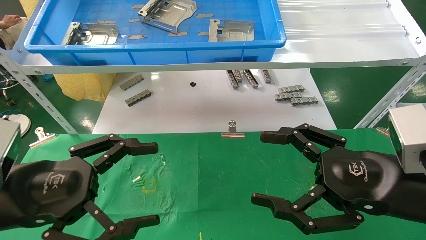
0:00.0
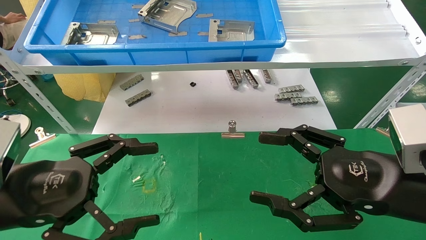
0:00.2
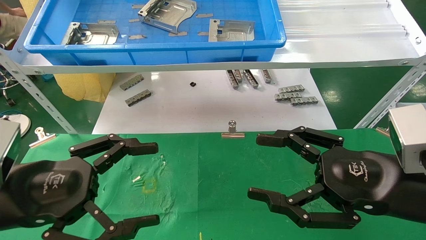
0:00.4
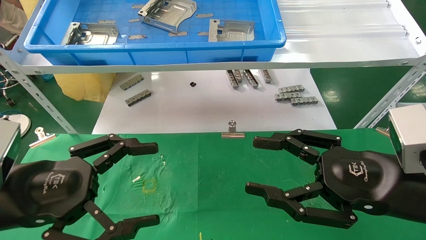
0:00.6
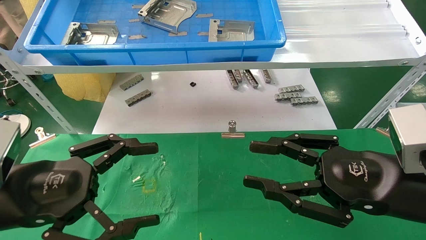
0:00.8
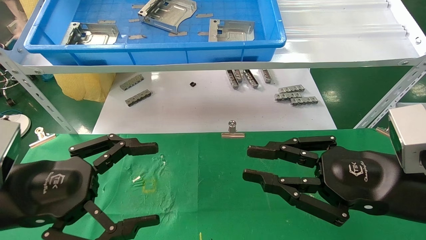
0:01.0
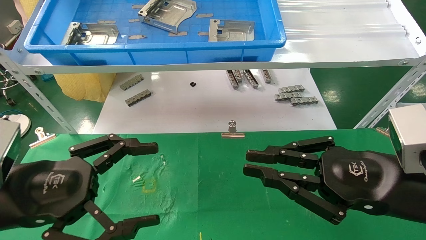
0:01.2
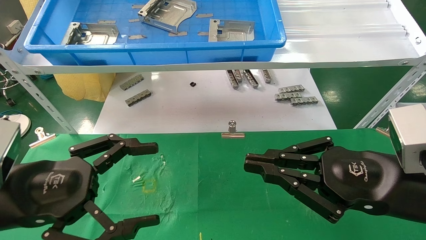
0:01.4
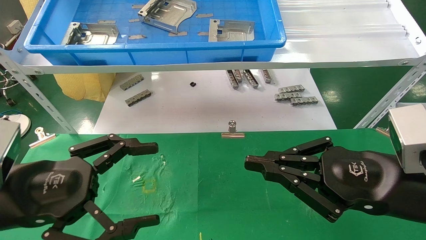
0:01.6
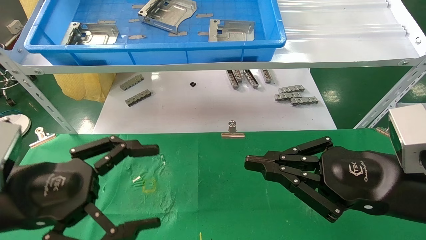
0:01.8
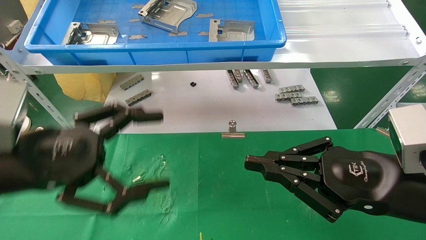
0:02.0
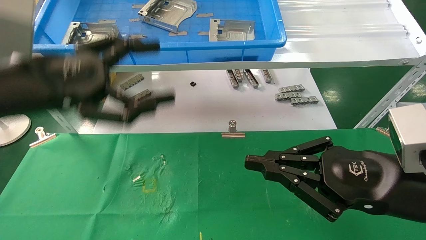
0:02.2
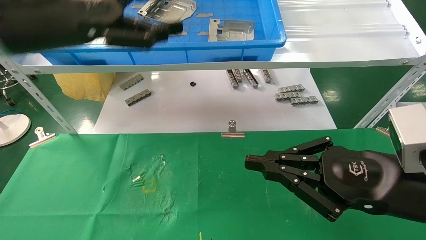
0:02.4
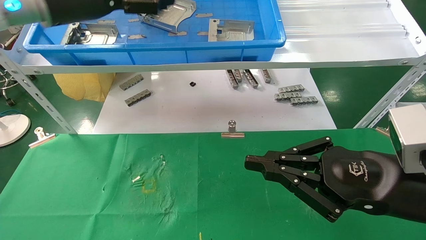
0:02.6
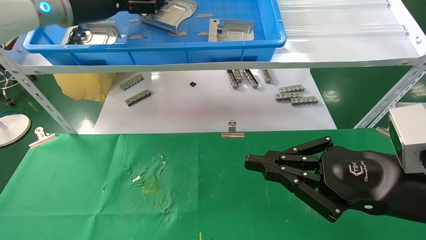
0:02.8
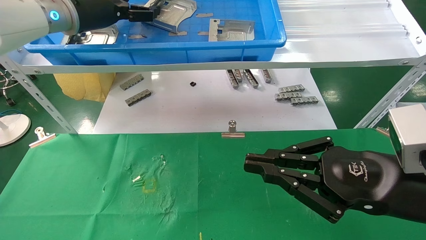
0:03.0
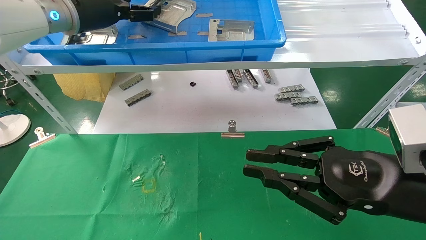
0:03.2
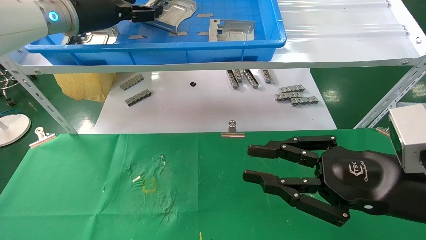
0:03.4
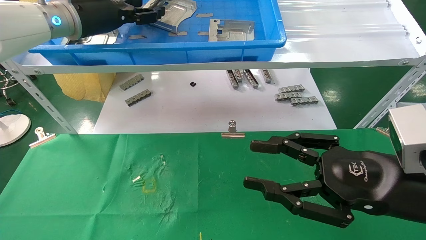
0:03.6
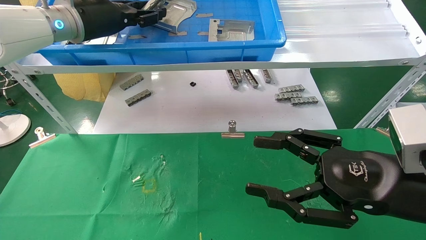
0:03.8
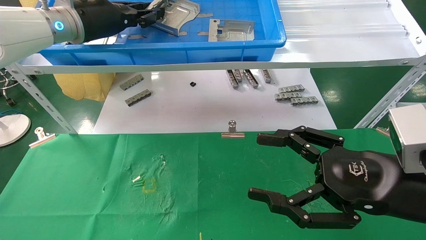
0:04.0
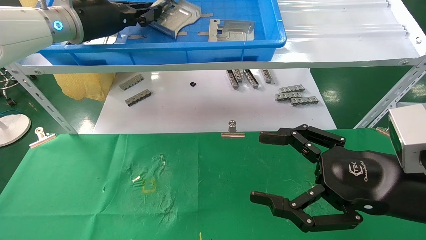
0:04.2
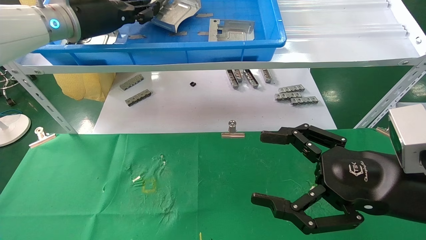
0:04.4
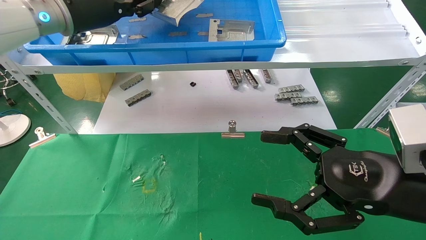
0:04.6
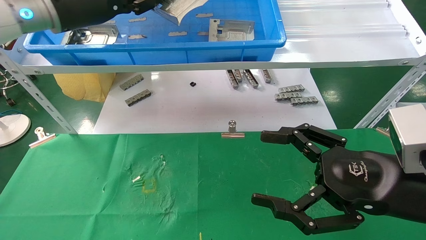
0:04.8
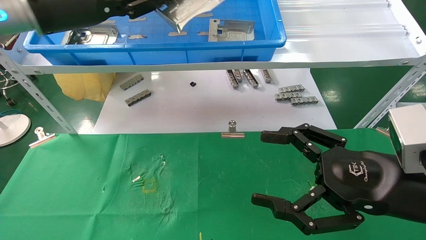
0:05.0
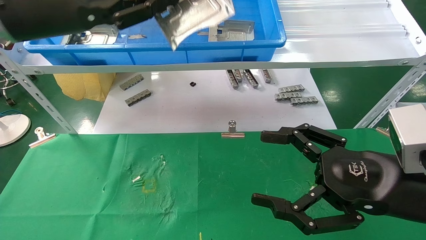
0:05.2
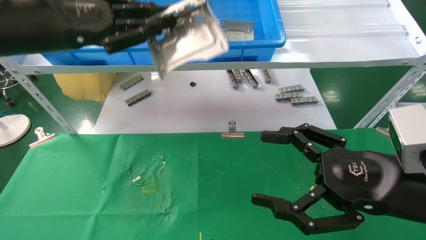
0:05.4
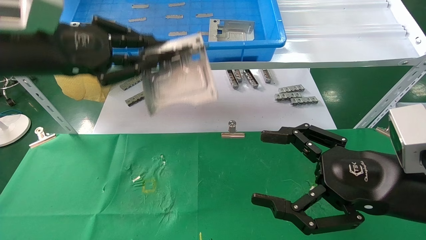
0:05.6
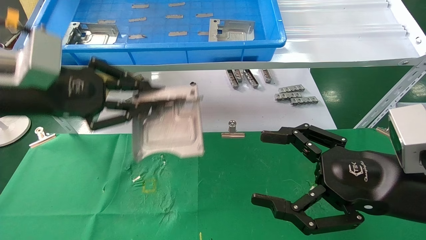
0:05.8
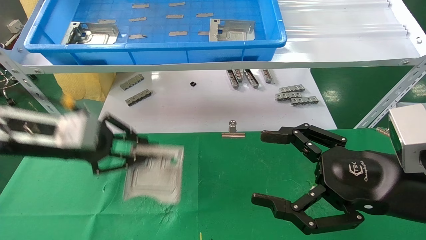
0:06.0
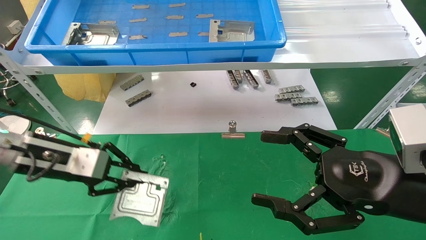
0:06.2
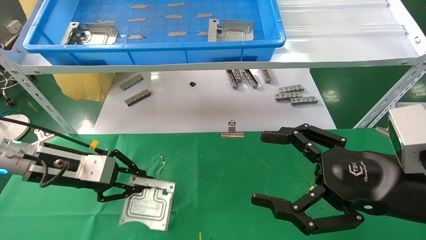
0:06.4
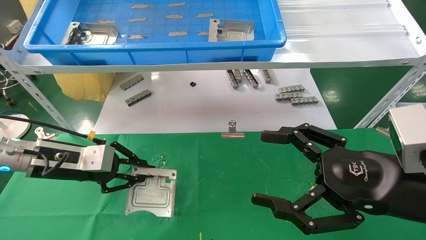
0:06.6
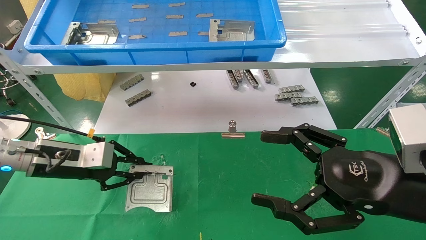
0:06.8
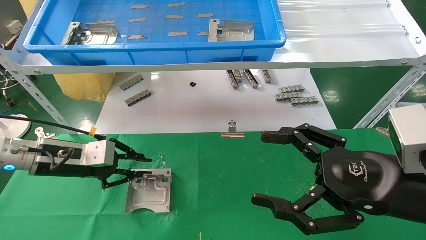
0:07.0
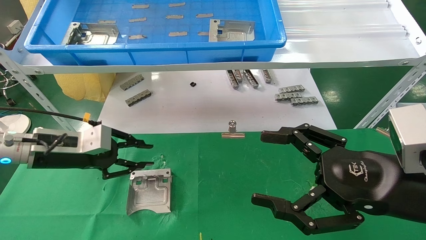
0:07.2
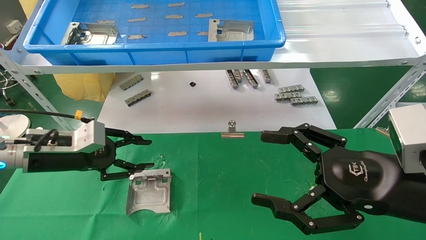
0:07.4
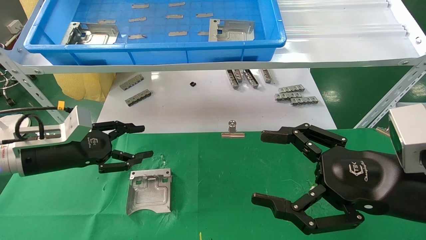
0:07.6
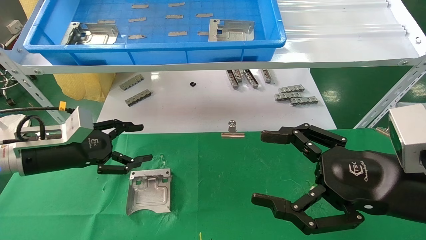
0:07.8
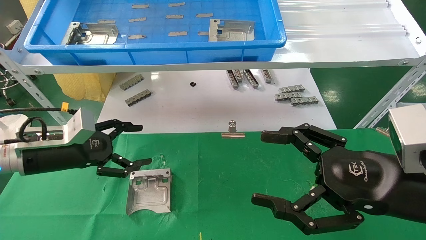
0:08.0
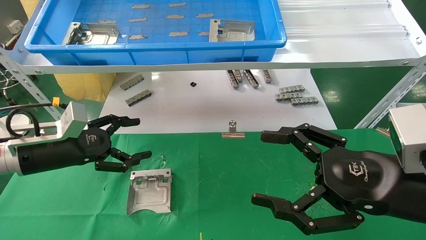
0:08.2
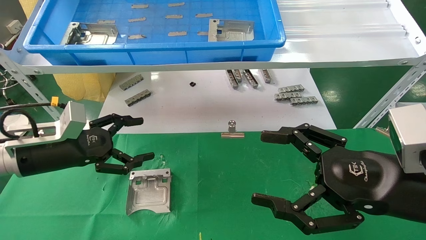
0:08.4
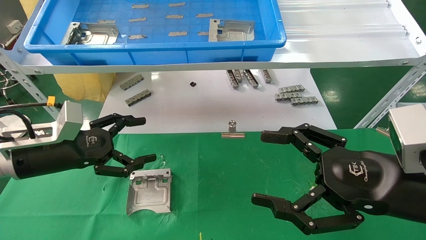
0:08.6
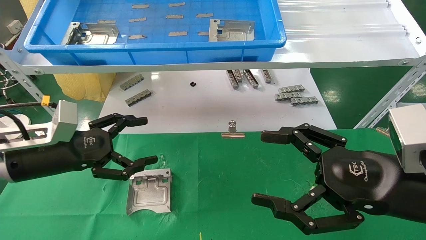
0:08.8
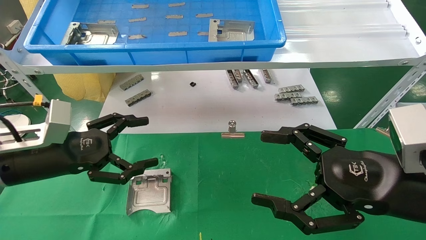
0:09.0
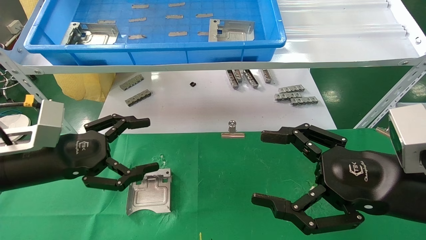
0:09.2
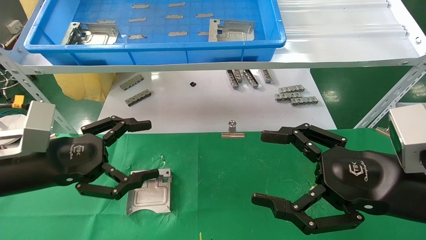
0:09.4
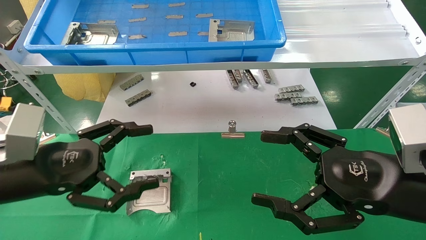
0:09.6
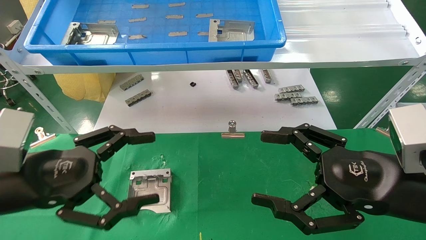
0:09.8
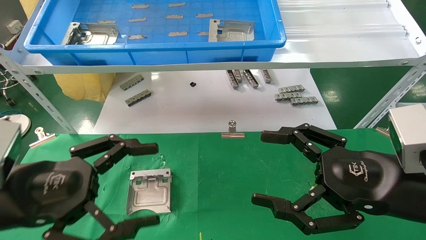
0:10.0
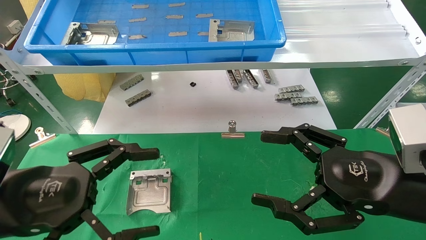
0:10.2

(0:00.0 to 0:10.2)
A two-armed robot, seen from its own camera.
Task of the whole recording: use the mechanical arm to pick up the parts and place them on the table.
Step, 0:02.2 - 0:04.2: Pick up the hard drive bracket from the feeding area.
Step, 0:04.4 - 0:07.4: Place the hard drive bracket into the box.
0:00.0 - 0:01.4: The right gripper closes up.
0:01.4 - 0:03.0: The left gripper heads forward and upward, covering some 35 cm.
0:03.0 - 0:04.4: The left gripper closes up. Meanwhile the right gripper opens.
0:04.4 - 0:05.8: The left gripper is displaced backward and downward by approximately 15 cm.
0:05.8 - 0:07.2: The left gripper goes some 15 cm downward and forward.
0:07.2 - 0:08.8: The left gripper opens up.
0:08.8 - 0:10.2: The left gripper shifts roughly 15 cm backward.

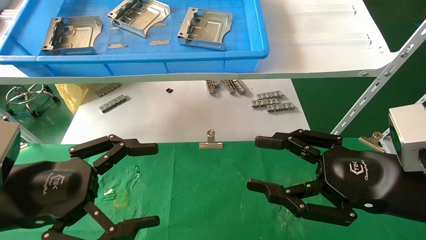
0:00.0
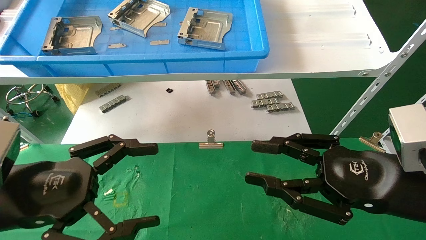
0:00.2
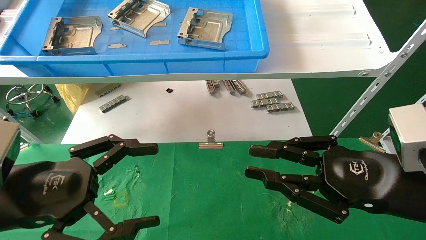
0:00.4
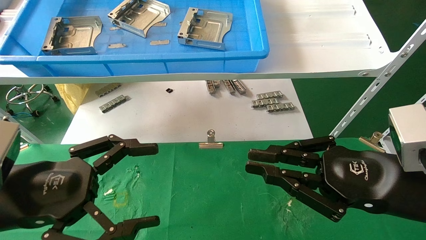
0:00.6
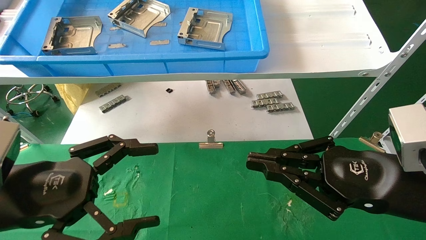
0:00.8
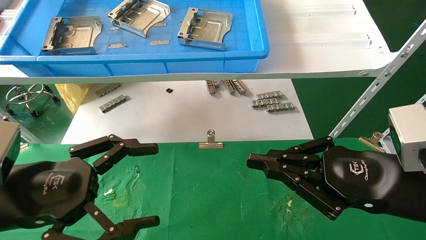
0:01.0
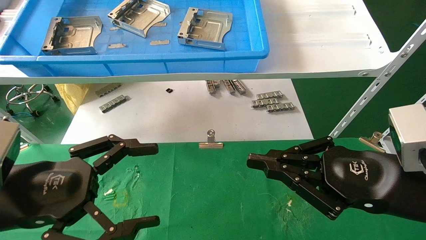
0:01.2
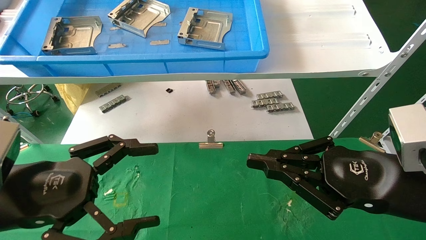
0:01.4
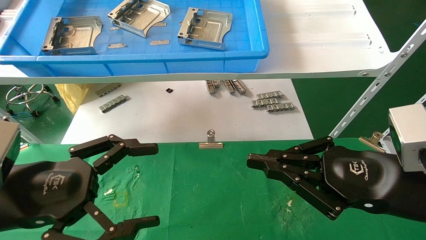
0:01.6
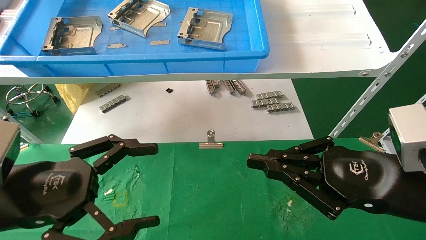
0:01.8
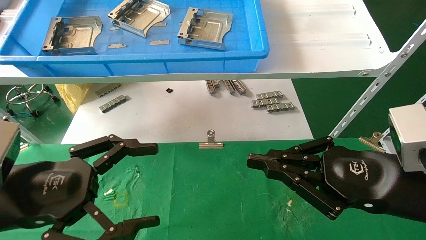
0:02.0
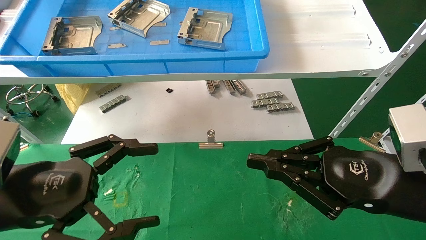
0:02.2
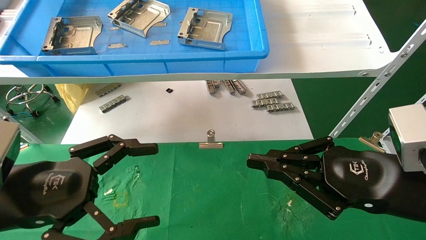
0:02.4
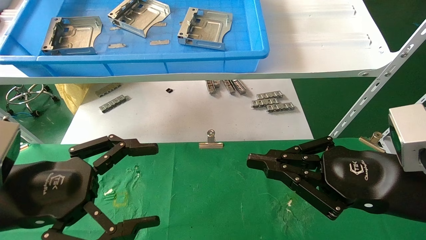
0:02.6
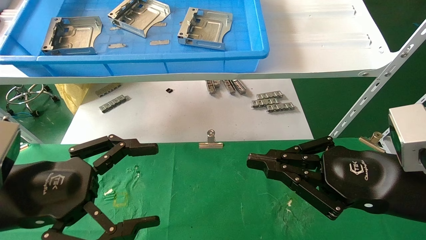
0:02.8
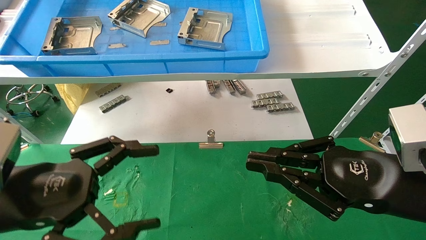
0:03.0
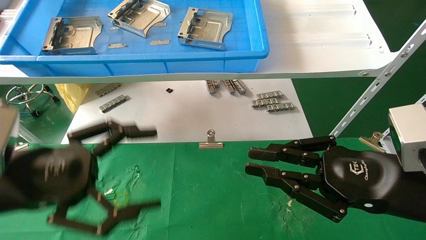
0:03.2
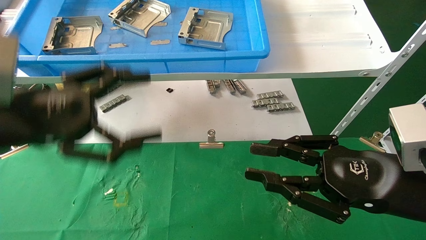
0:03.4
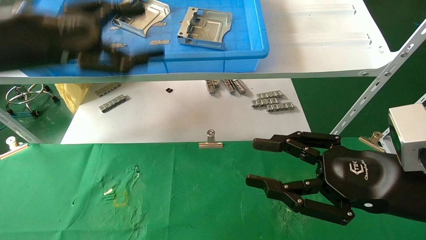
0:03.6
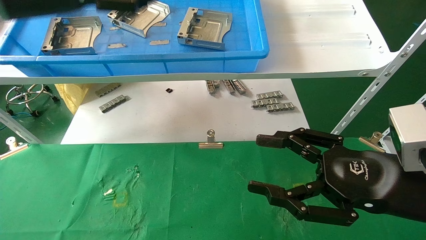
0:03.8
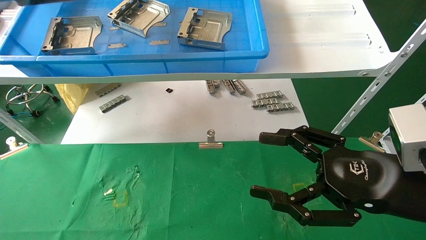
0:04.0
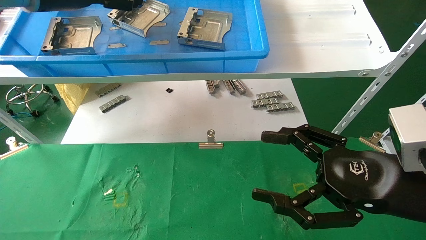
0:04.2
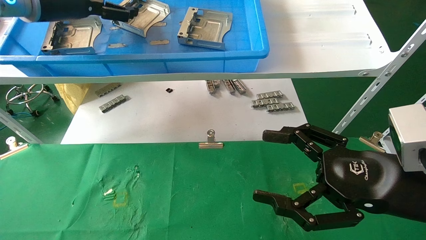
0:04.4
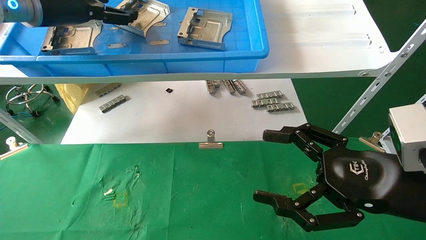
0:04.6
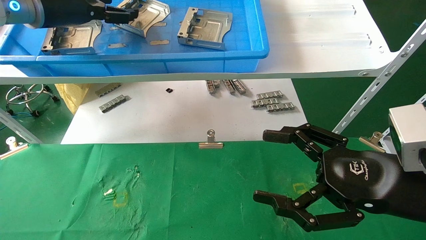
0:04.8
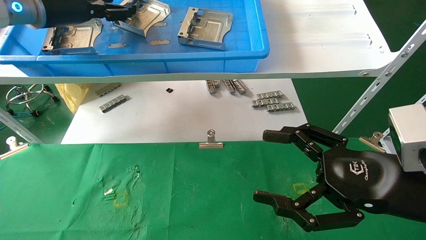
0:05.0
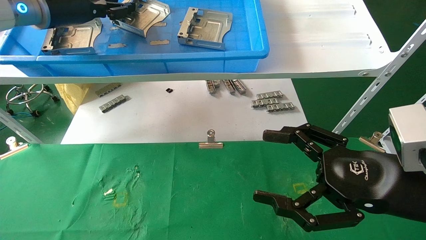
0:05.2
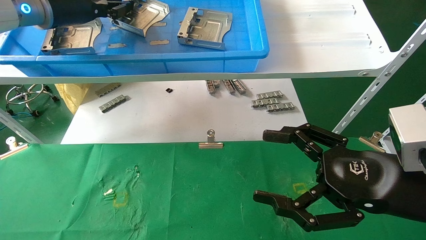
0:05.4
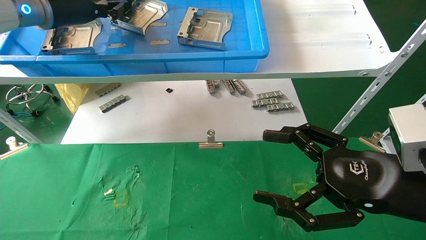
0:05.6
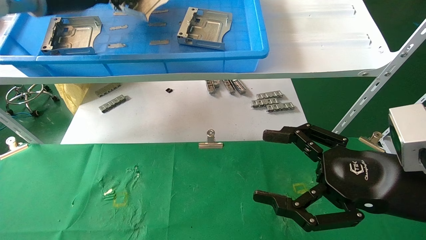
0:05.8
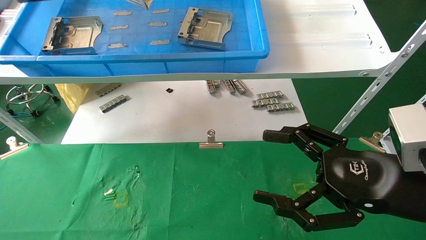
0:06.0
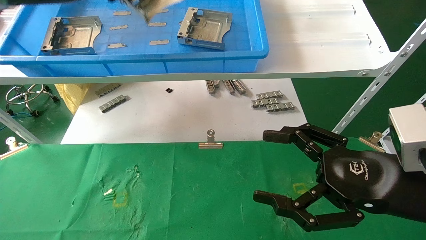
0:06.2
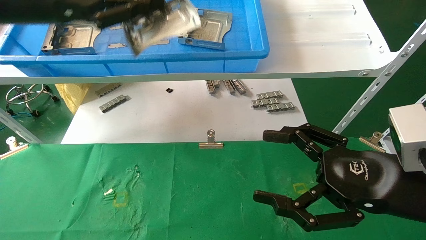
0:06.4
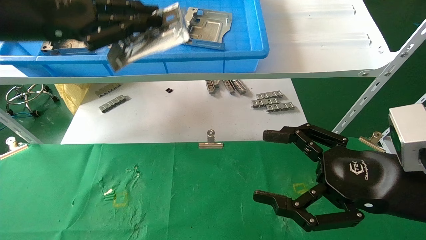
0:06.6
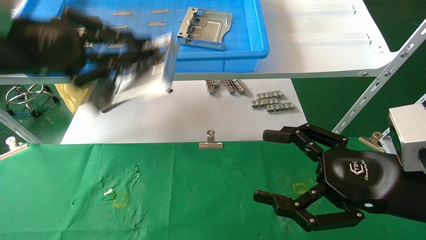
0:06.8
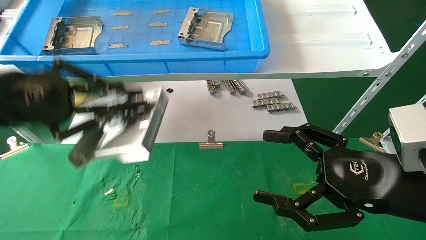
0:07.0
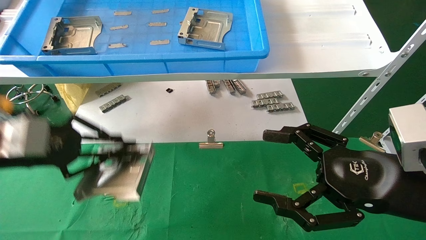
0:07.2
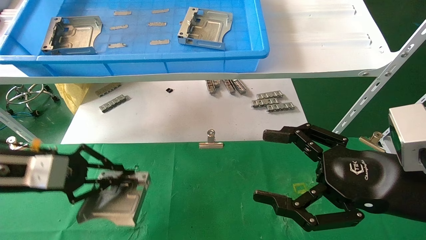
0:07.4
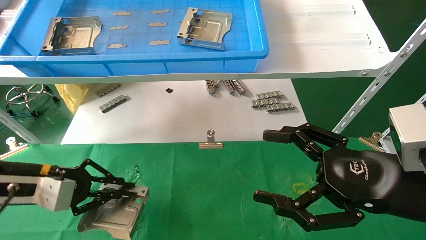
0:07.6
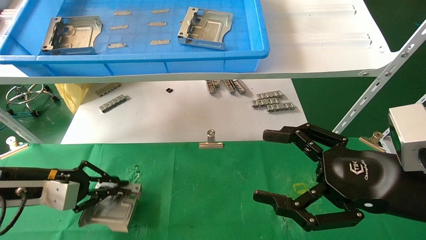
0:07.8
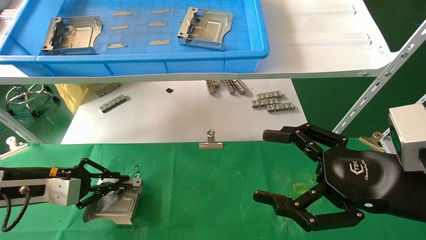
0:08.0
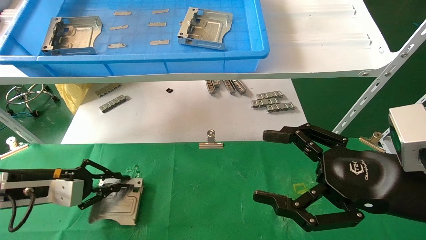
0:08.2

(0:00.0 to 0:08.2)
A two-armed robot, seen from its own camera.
Task of the whole recording: use the mechanical arm to pick up the parts and place them on the table.
Step, 0:03.4 - 0:05.6: Pick up the hard drive bracket from the feeding area.
0:00.0 - 0:01.6: The right gripper closes its fingers.
0:01.6 - 0:03.2: The grippers make only small movements.
0:03.2 - 0:05.0: The left gripper travels forward and upward by roughly 30 cm, while the right gripper opens.
0:05.0 - 0:06.6: The left gripper heads backward, covering approximately 15 cm, and closes its fingers.
0:06.6 - 0:08.2: The left gripper travels downward by roughly 30 cm.
